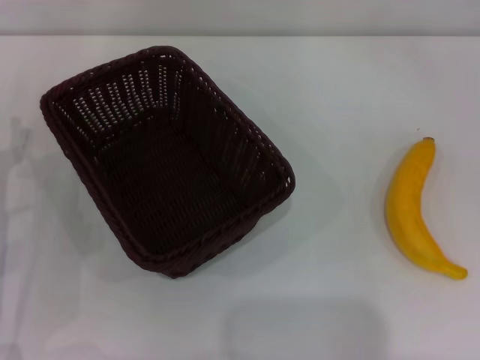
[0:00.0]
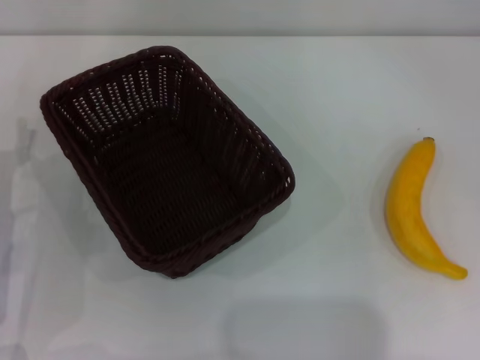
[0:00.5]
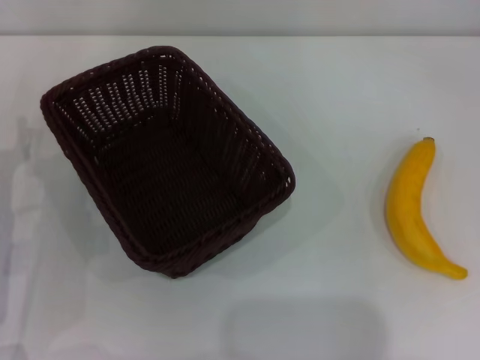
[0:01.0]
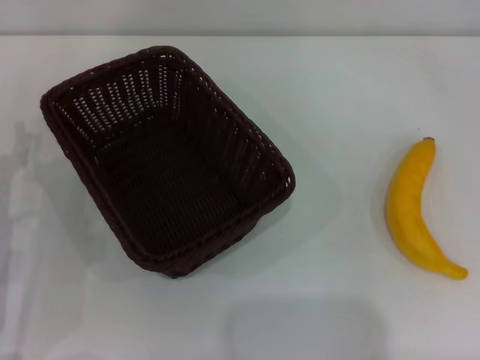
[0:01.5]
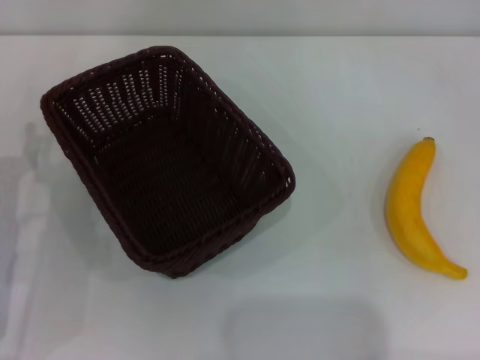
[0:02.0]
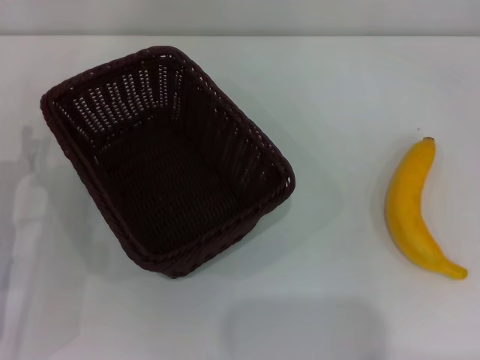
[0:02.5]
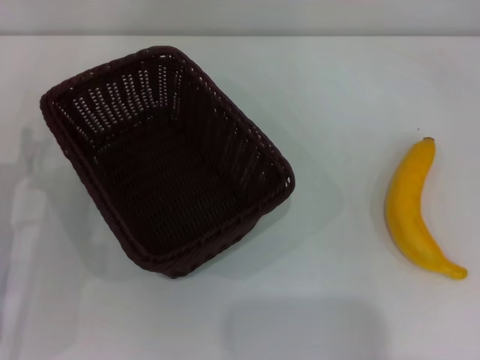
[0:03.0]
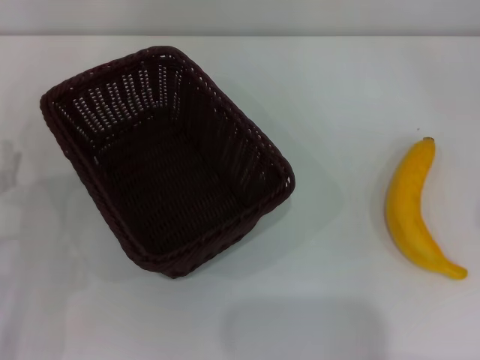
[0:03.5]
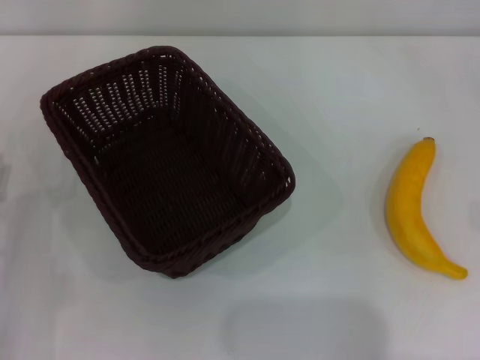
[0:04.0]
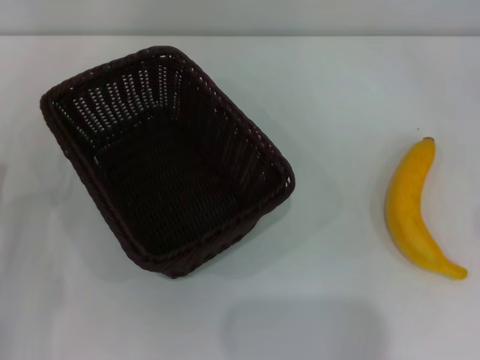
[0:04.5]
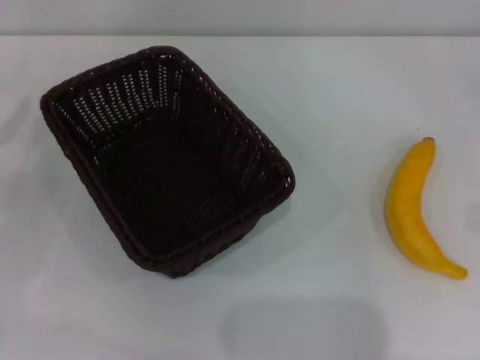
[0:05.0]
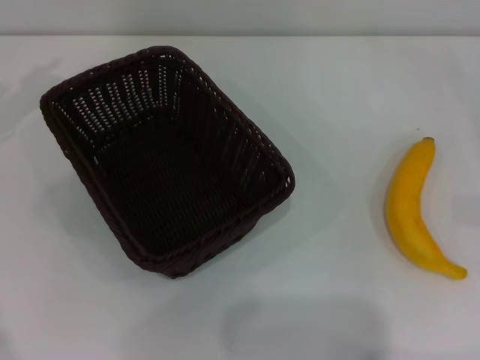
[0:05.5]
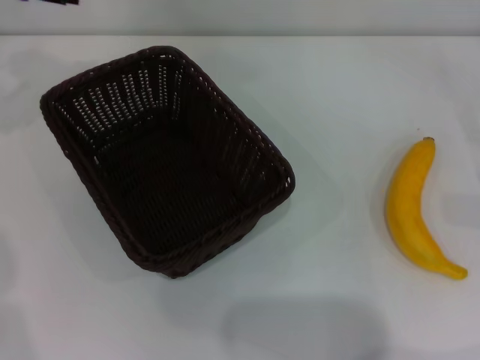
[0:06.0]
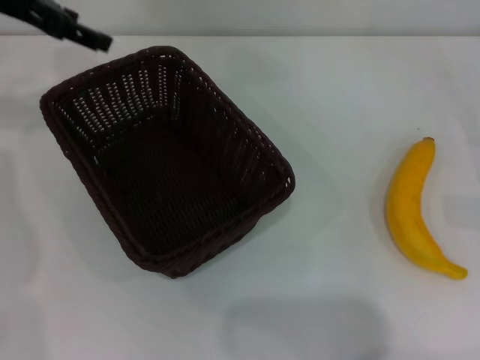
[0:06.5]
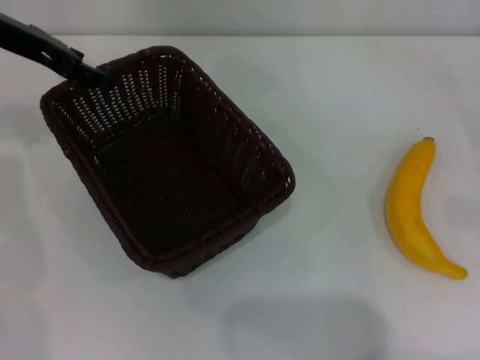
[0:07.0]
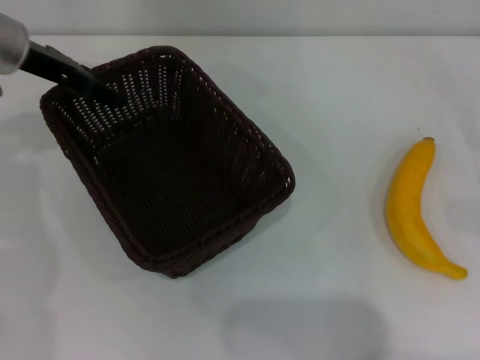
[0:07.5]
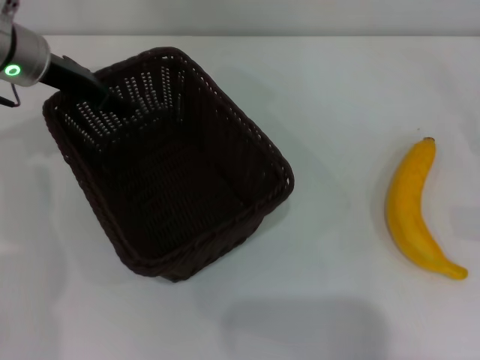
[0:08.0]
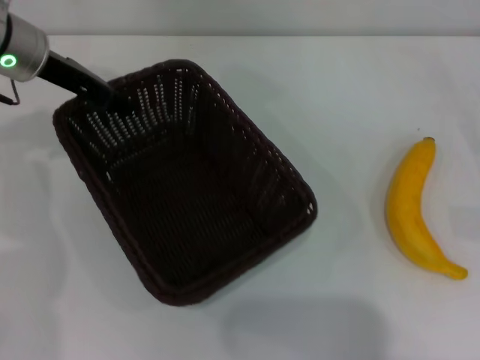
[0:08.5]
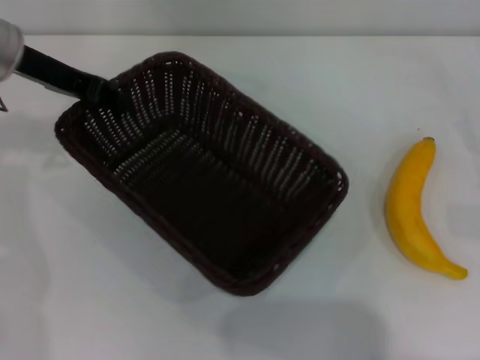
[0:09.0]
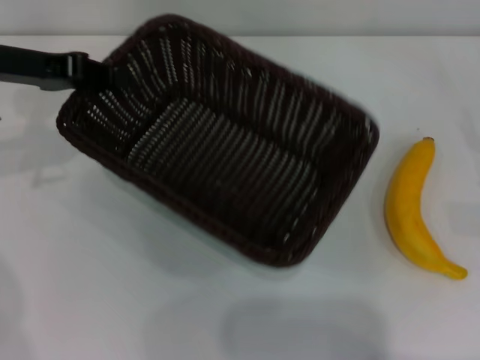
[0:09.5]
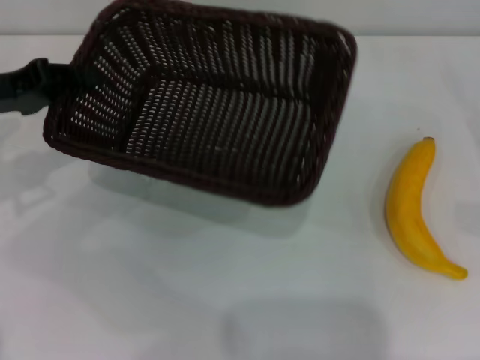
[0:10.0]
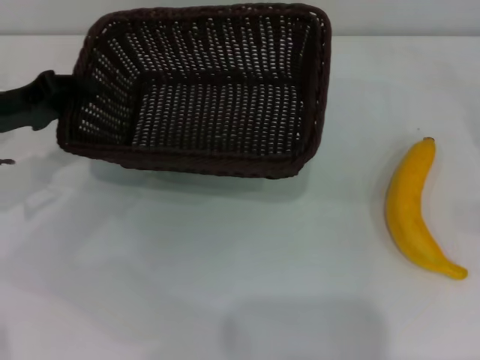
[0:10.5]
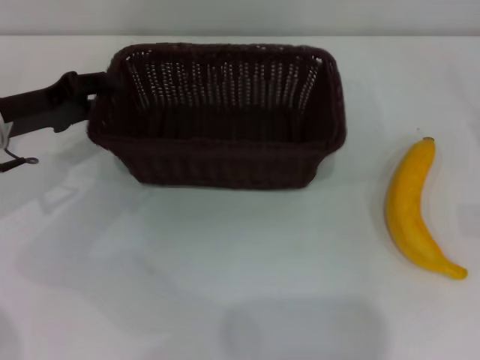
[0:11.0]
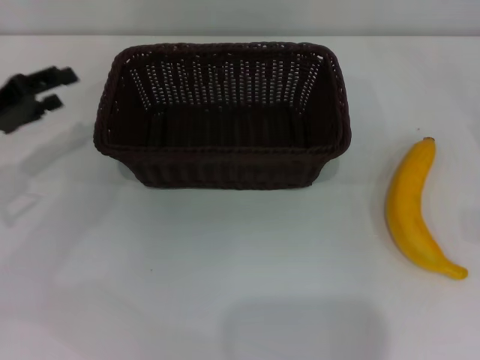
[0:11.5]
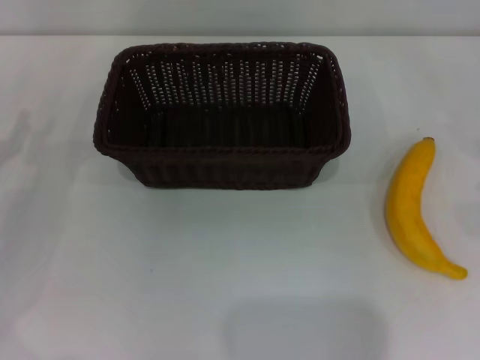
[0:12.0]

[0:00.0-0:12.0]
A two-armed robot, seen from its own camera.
Step, 0:00.0 to 0:09.0: Pick up the dark basket with the left gripper.
Step, 0:09.5 to 0:11.5: Place the dark basket in the center of view with the left gripper.
0:04.0 to 0:06.0: The left gripper goes roughly 30 cm upward and forward.
0:06.0 to 0:08.0: The left gripper is displaced downward and to the right by about 10 cm.
0:08.0 to 0:10.0: The left gripper moves backward and to the left, approximately 10 cm, and closes up.
0:10.0 to 0:12.0: The left gripper is displaced downward and backward by about 10 cm, and opens.

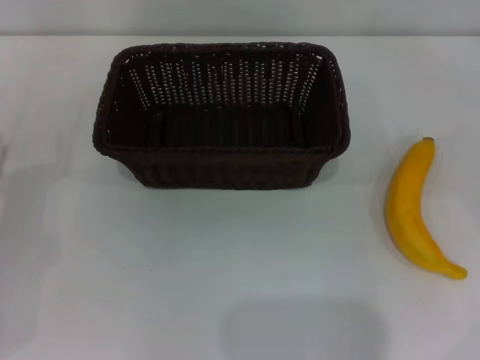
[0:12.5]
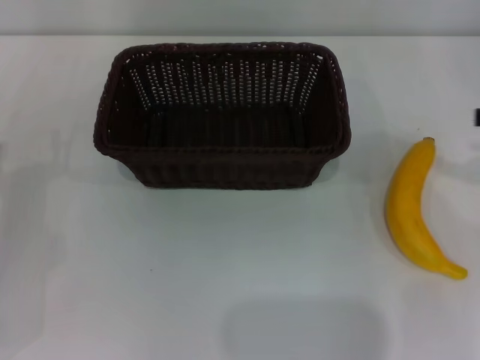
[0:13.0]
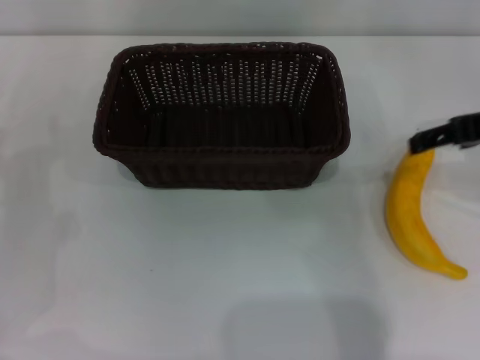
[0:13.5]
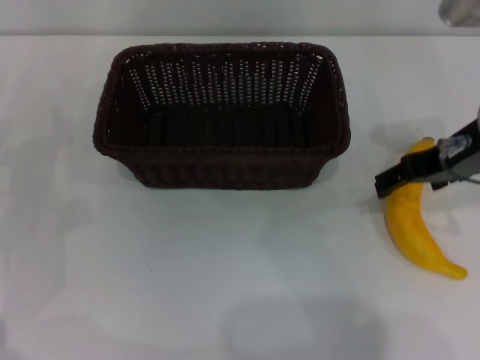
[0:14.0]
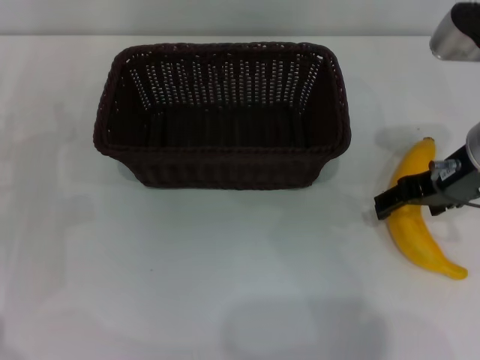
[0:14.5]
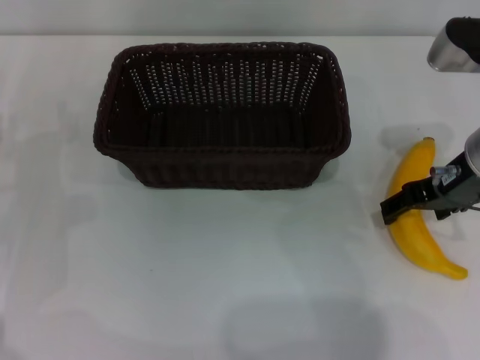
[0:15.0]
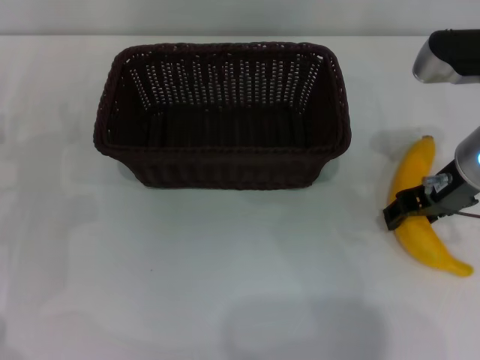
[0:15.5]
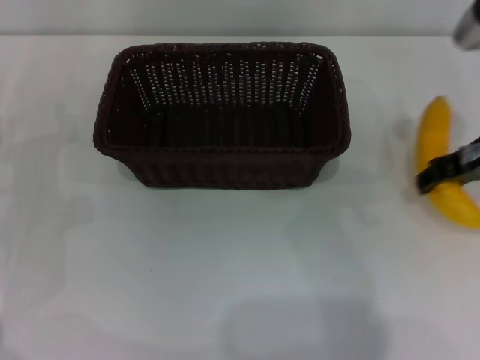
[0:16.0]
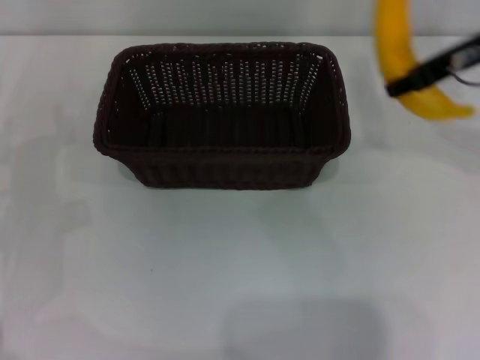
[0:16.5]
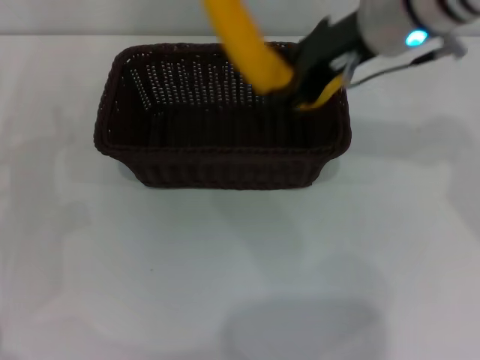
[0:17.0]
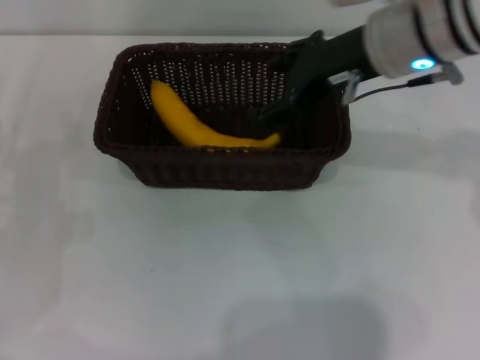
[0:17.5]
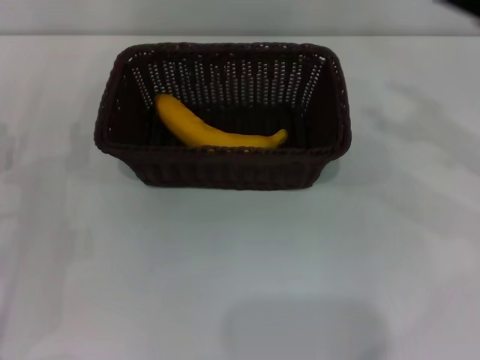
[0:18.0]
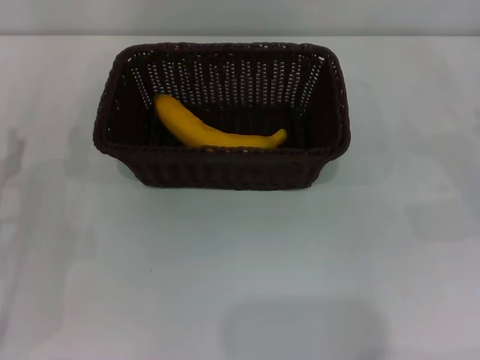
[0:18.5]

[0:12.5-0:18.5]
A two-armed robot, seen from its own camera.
Step, 0:12.5 to 0:16.0: Pick up the banana with the right gripper.
Step, 0:16.5 to 0:17.5: Place the banana into the dark basket with the right gripper.
0:12.5 to 0:14.5: The right gripper moves to the left, about 20 cm.
0:14.5 to 0:16.5: The right gripper is displaced upward by some 5 cm, and closes up.
0:16.5 to 0:18.5: The right gripper travels downward, to the right and backward by approximately 25 cm, and opens up.

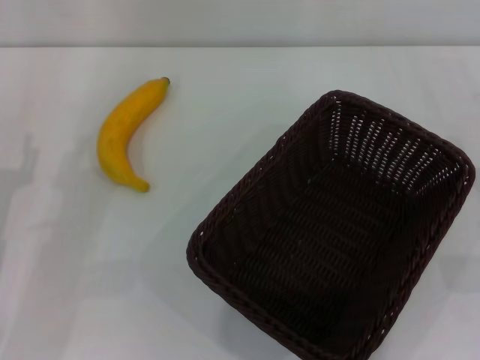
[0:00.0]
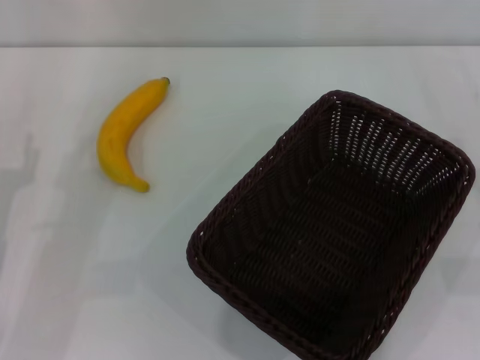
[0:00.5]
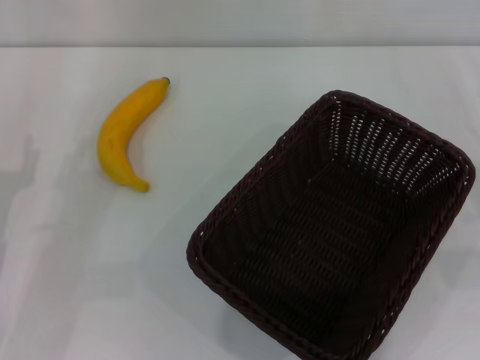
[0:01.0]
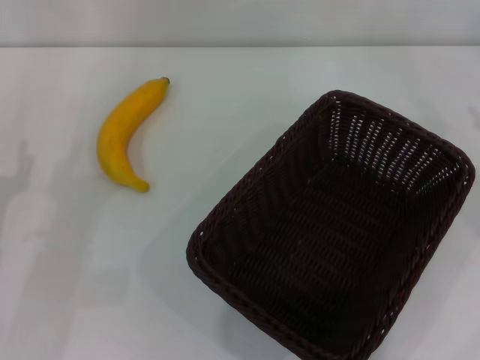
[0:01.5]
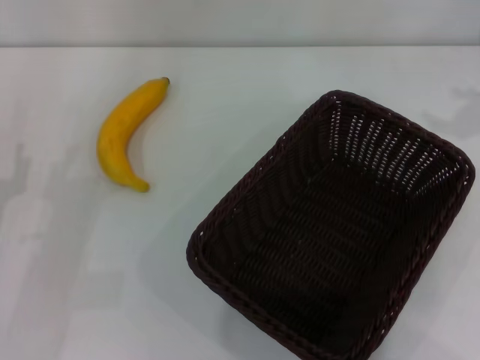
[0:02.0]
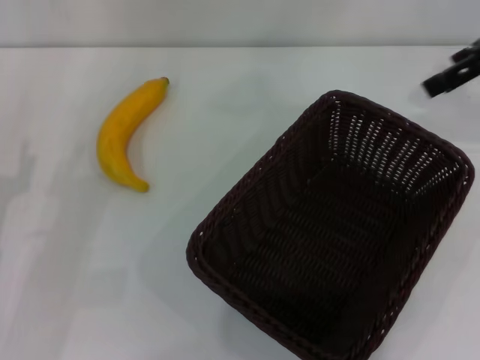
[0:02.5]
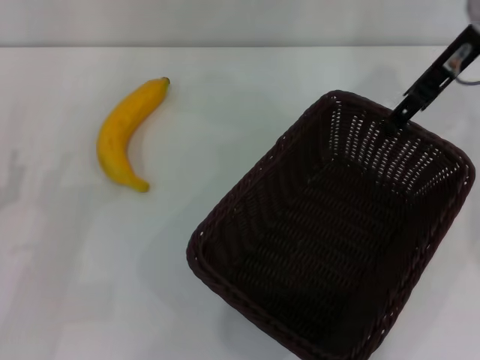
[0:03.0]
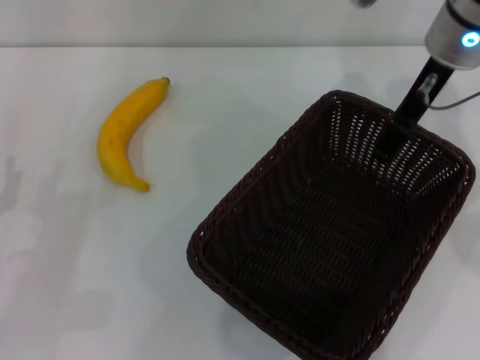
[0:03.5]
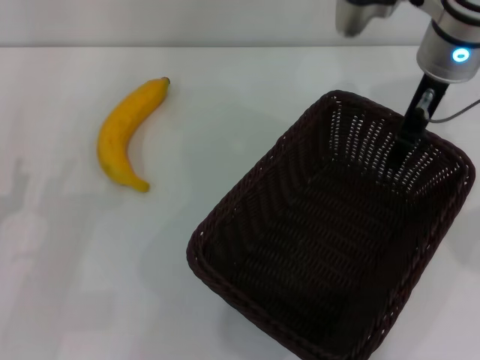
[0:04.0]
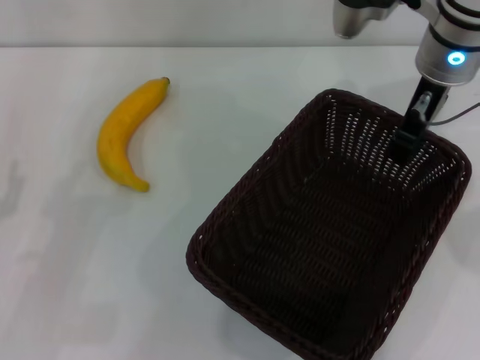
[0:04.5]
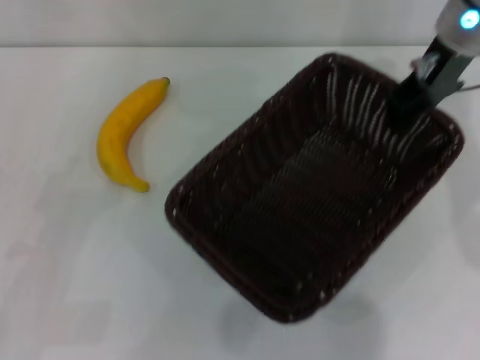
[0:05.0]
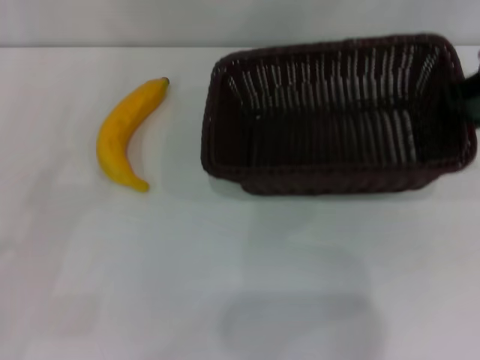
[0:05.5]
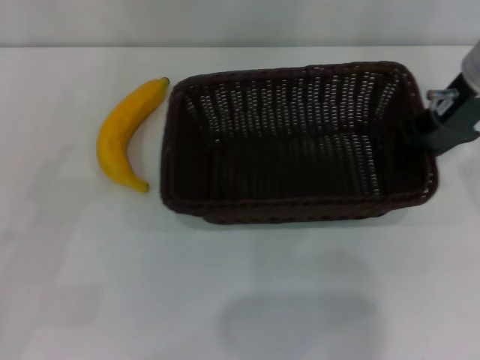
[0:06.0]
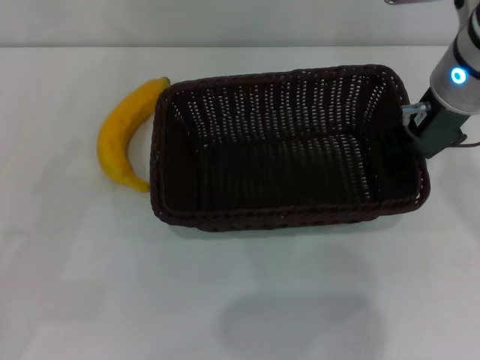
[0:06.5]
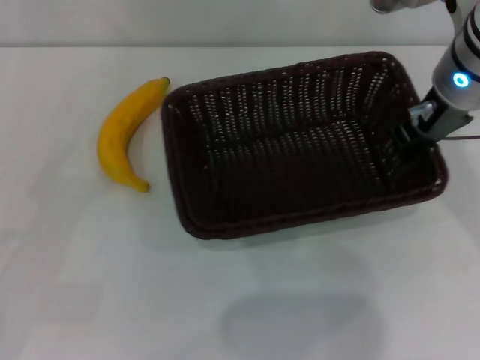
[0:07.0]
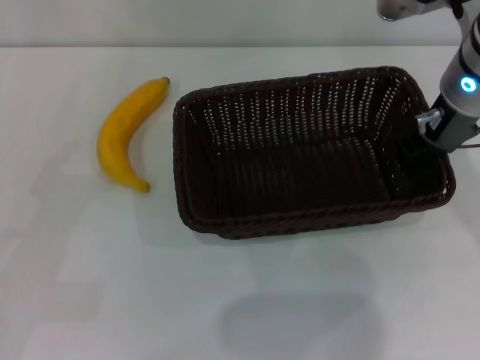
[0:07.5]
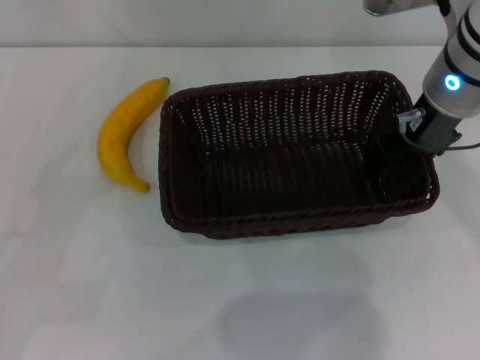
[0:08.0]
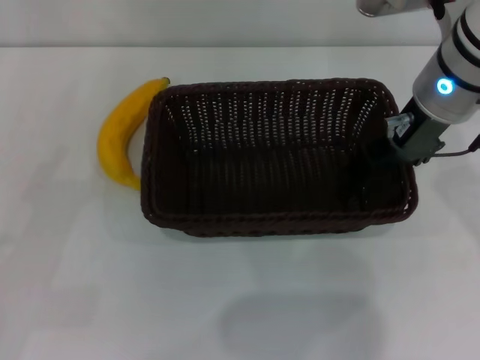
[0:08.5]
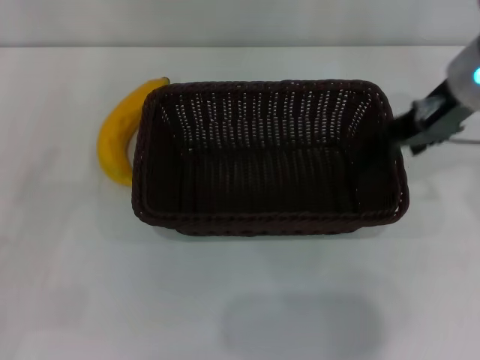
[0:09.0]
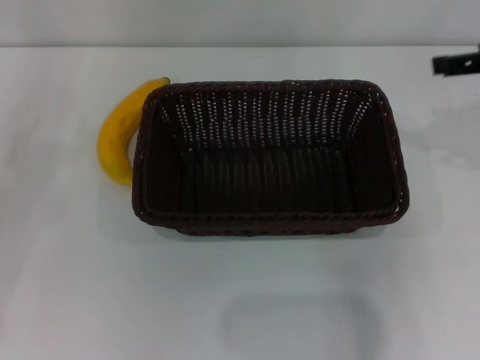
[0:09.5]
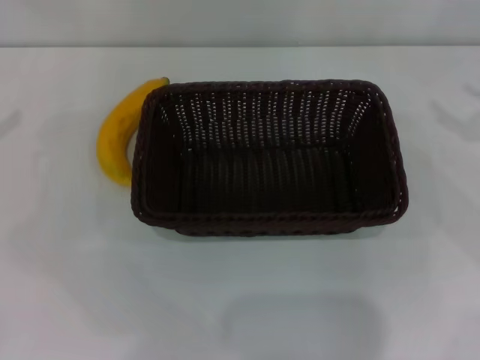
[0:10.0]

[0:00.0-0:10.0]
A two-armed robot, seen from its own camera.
Step, 0:00.0 to 0:05.0: Pick up the dark basket with the right gripper.
Step, 0:05.5 to 0:09.0: Place the dark basket in the center of view with the right gripper.
0:02.0 to 0:04.0: The right gripper moves to the left, about 20 cm.
0:04.0 to 0:06.0: The right gripper closes up, while the left gripper heads to the left, covering about 5 cm.
0:06.0 to 0:08.0: The right gripper opens up.
0:08.0 to 0:10.0: The left gripper travels upward and forward by some 20 cm; the right gripper is displaced to the right by about 20 cm, and opens up.
